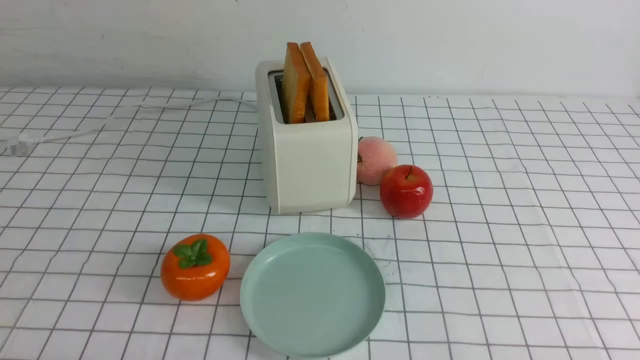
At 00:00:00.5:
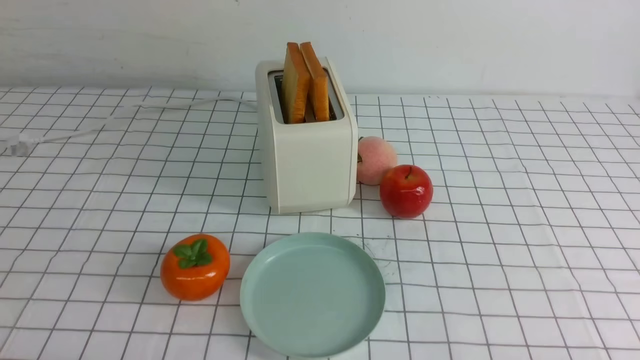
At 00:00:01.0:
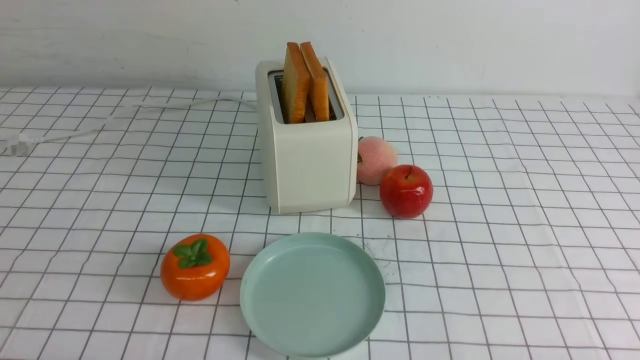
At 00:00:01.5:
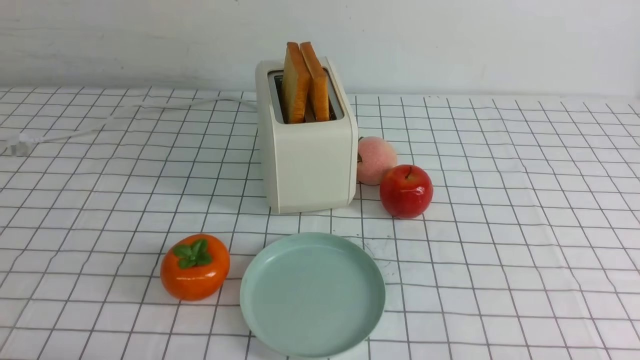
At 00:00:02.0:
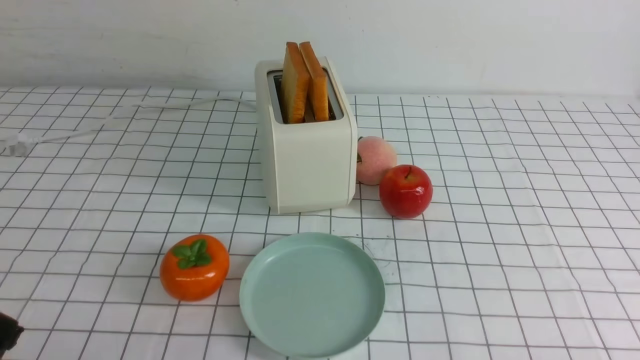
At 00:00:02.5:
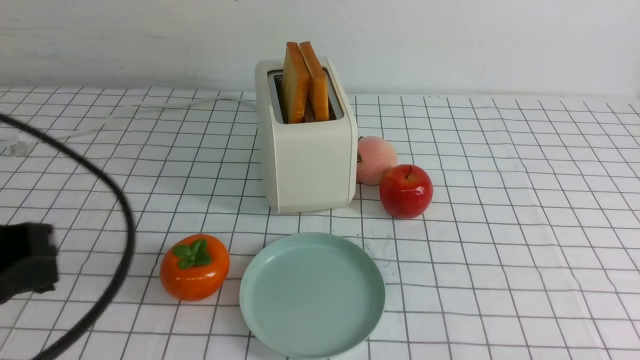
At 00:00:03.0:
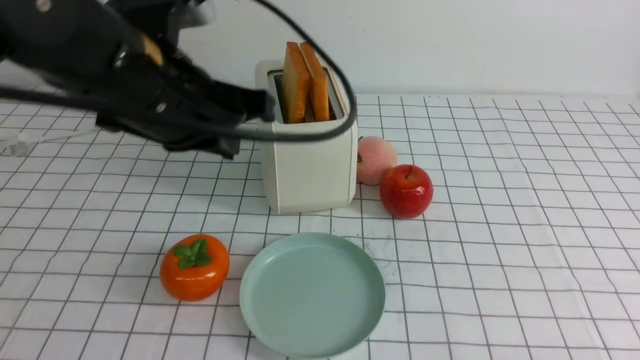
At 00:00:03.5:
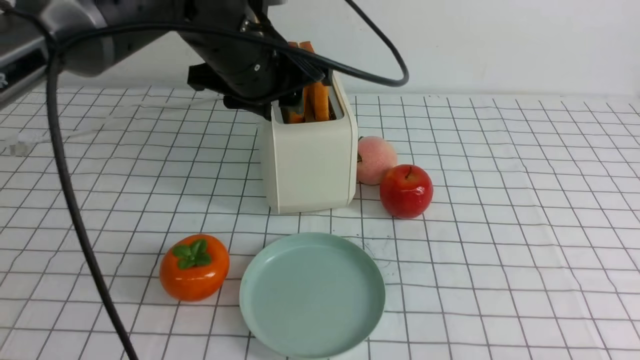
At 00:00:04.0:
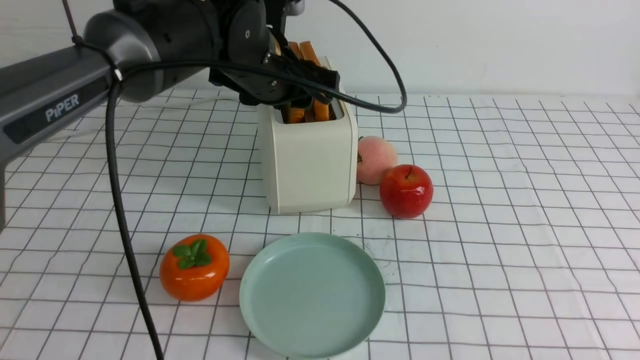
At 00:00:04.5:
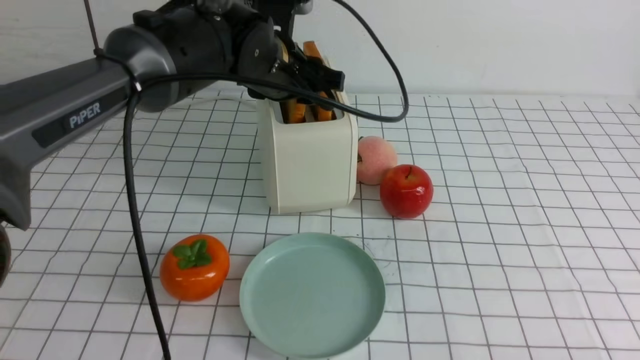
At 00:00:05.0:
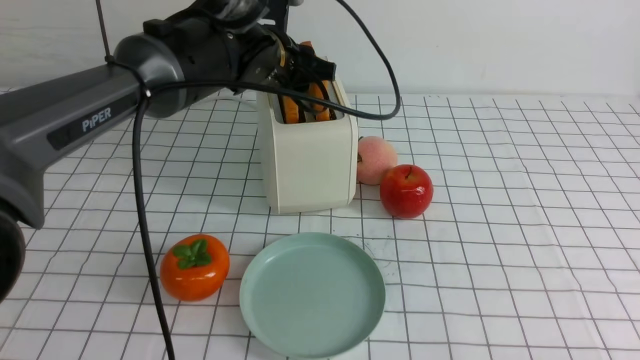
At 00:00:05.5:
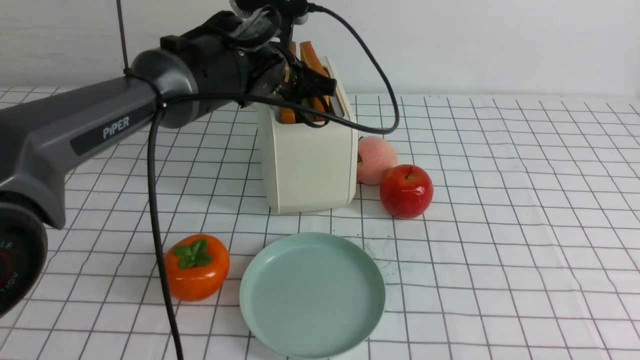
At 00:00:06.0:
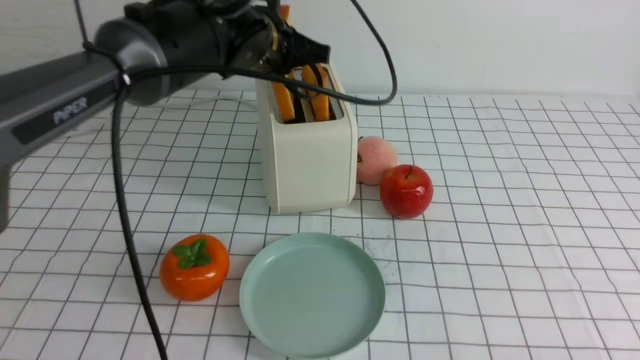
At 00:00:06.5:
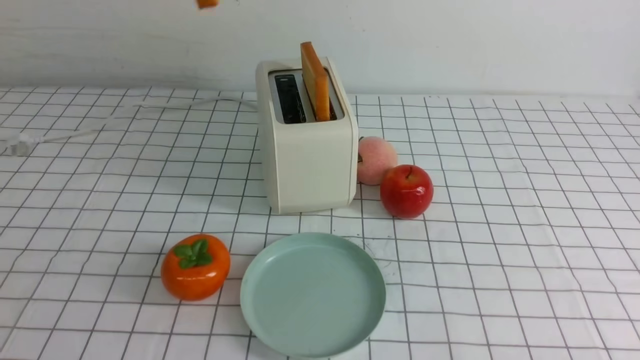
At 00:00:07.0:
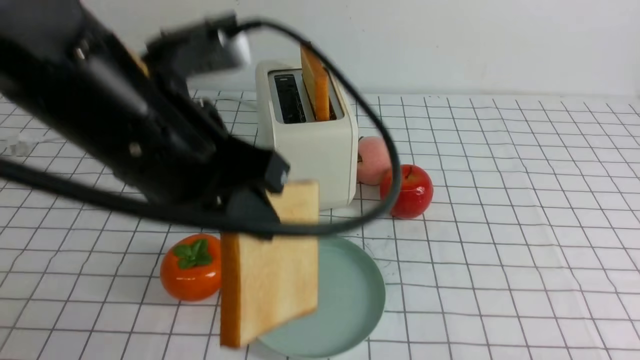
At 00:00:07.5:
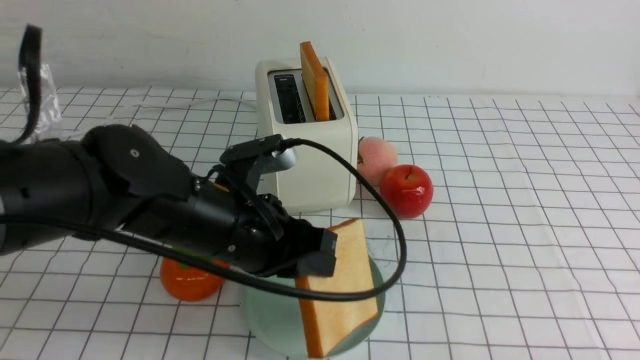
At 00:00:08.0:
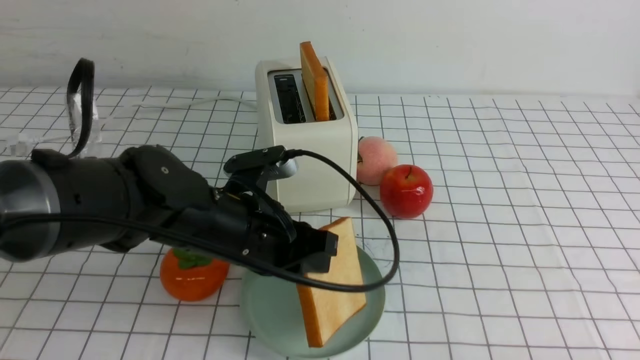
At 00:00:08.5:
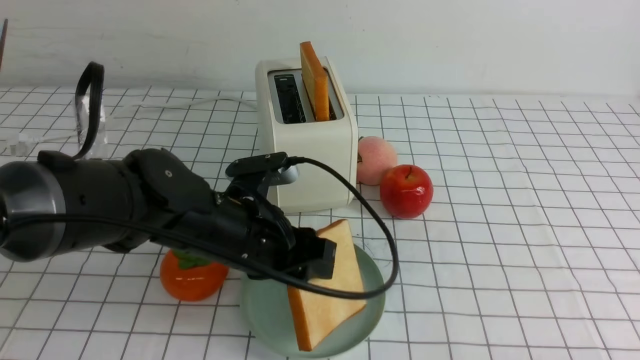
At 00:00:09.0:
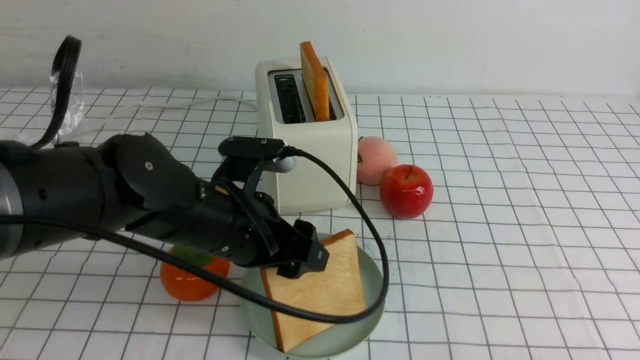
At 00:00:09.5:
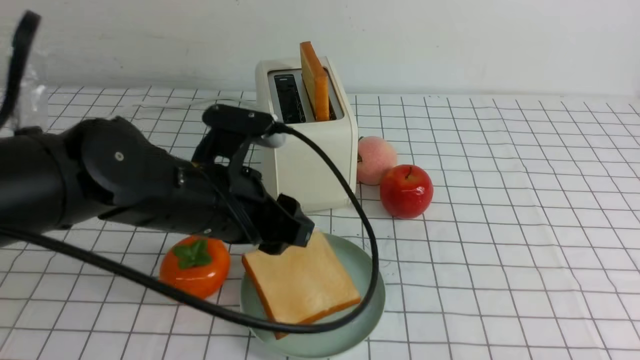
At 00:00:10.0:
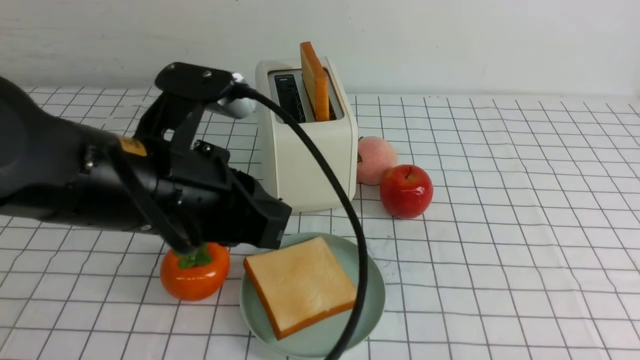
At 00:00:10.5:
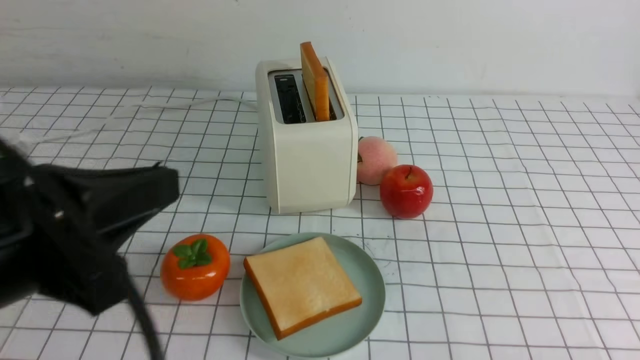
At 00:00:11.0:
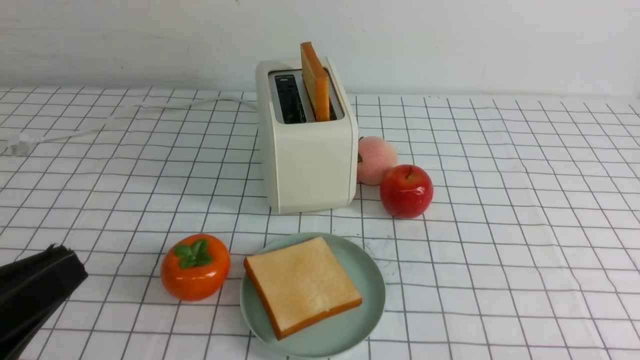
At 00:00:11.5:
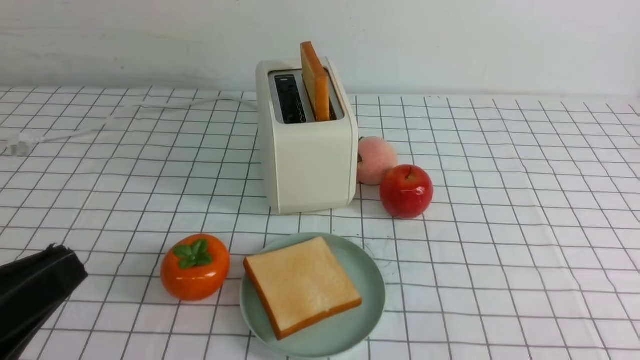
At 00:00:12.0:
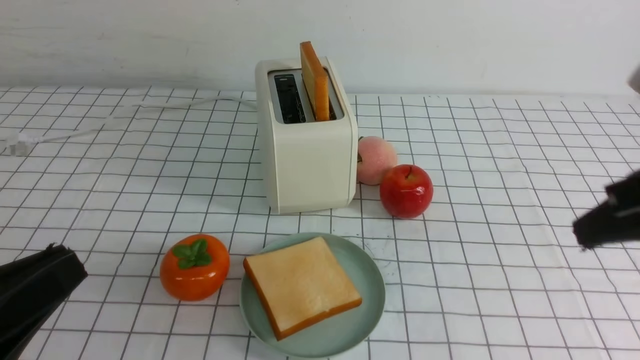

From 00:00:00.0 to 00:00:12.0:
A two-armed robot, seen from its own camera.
Task of the whole recording: take toasted bread from bread machine on white checkered table place on plate.
Step, from 00:00:00.0 to 00:00:06.0: use the left arm to take out a slice of bread.
Step, from 00:00:06.5 to 00:00:09.5: use the left arm to put a slice of bread into the empty plate.
From 00:00:02.0 to 00:00:04.0: The left gripper travels forward and to the right by roughly 40 cm, and opens.
From 00:00:04.0 to 00:00:06.0: The left gripper closes.
From 00:00:06.0 to 00:00:08.0: The left gripper travels downward and backward by some 20 cm.
From 00:00:08.0 to 00:00:10.0: The left gripper is displaced upward and backward by roughly 15 cm, and opens and closes again.
From 00:00:10.0 to 00:00:12.0: The right gripper shifts roughly 25 cm upward and forward, and closes up. Meanwhile the left gripper shifts roughly 20 cm backward and to the left.

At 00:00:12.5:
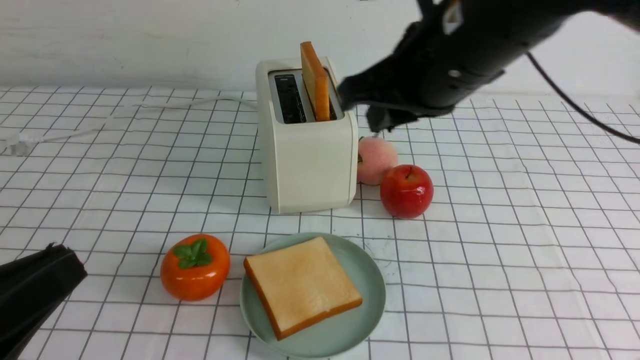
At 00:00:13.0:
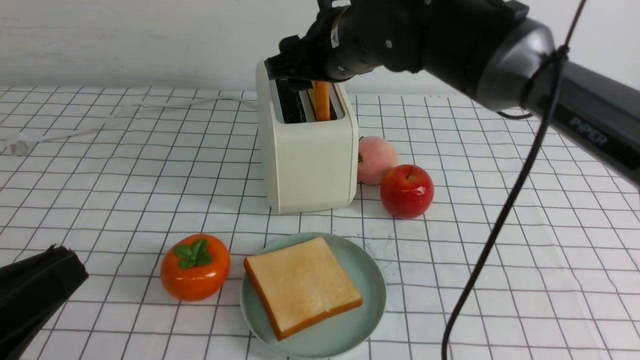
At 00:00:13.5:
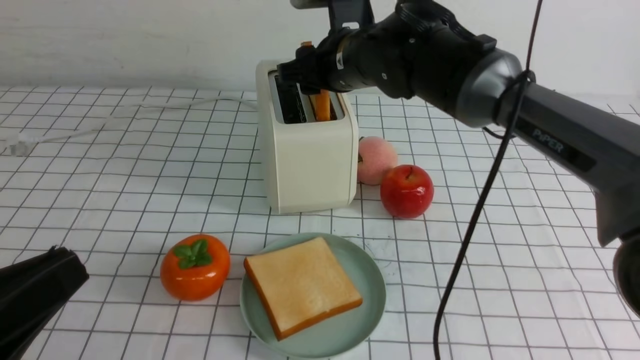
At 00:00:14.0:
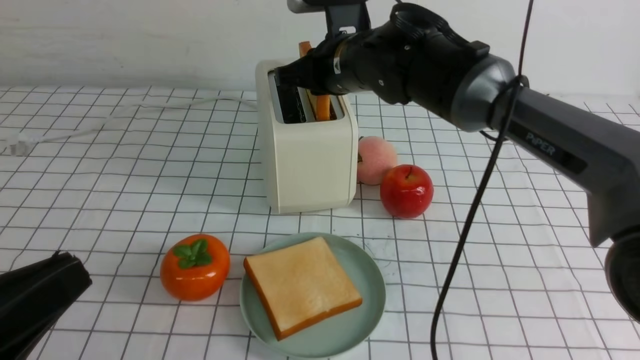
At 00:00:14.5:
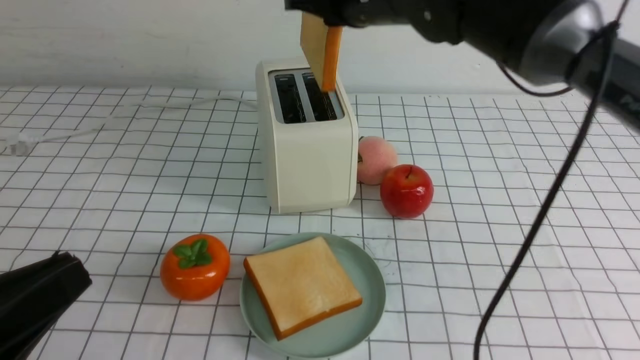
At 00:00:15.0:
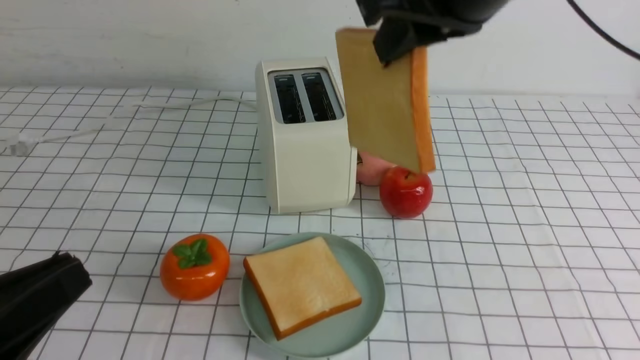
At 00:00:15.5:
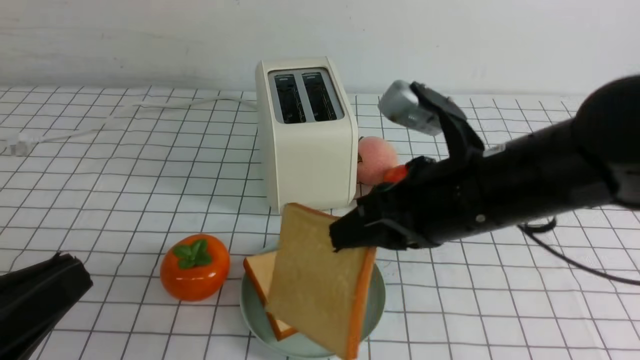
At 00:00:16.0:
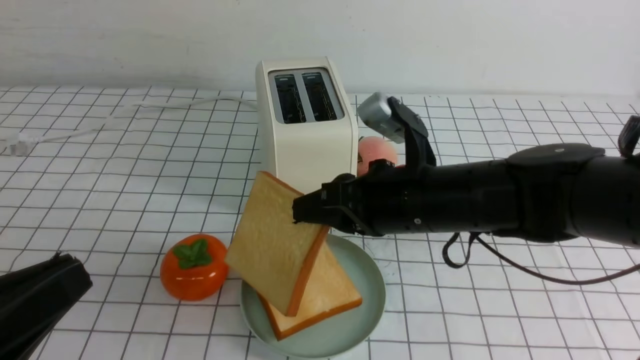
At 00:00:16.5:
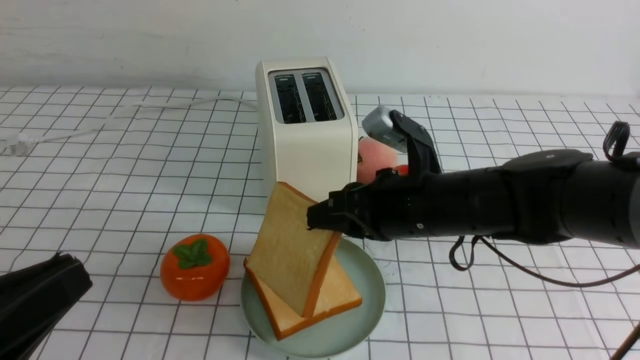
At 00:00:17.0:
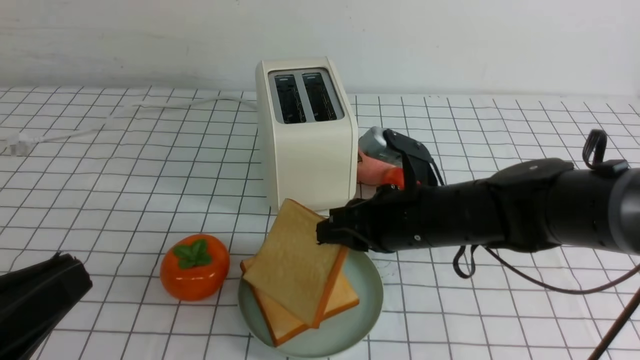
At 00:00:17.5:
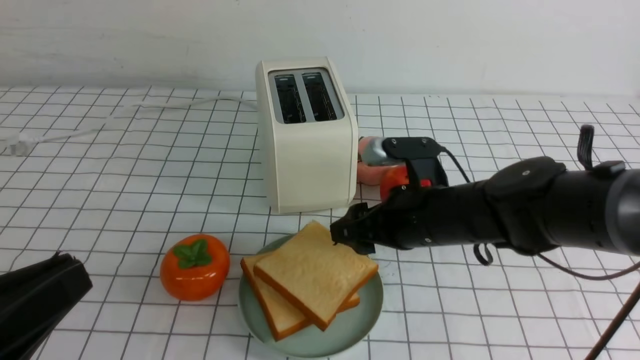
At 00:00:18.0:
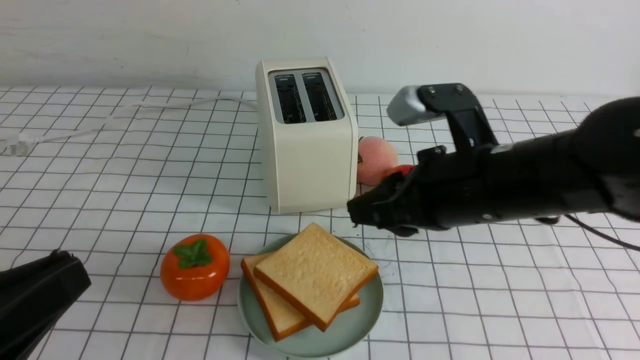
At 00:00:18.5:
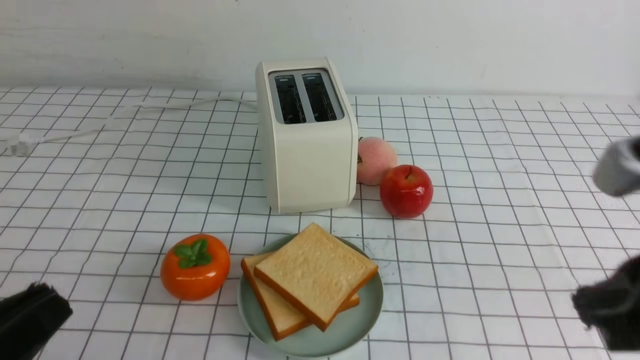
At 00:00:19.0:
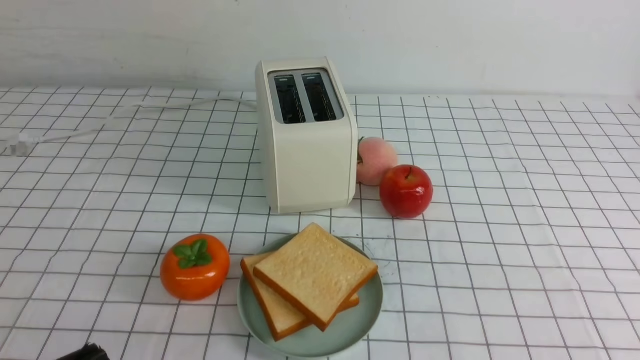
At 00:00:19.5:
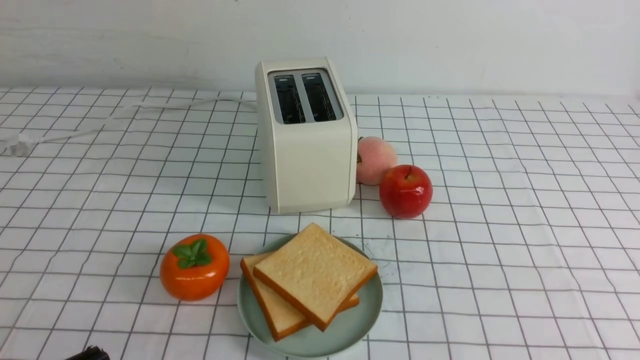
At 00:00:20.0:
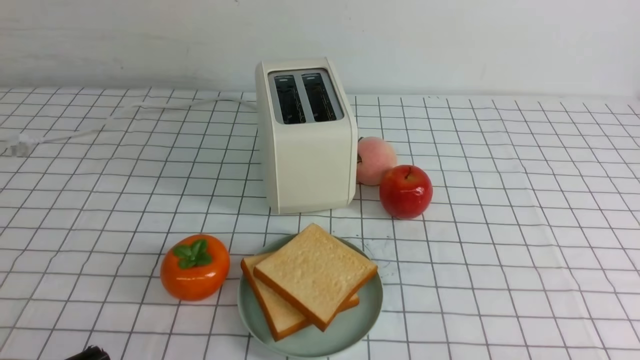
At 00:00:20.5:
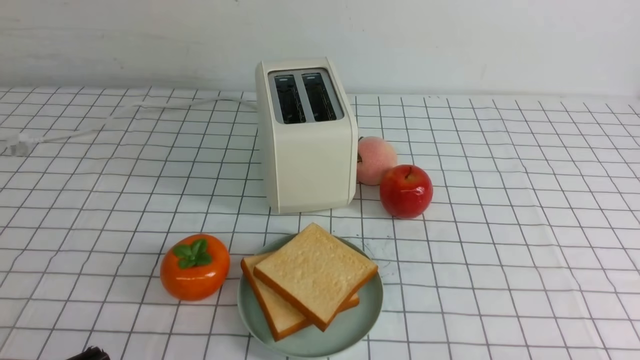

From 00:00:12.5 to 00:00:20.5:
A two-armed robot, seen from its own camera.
Task of the whole recording: take toasted bread from bread machine on white checkered table place on plate.
Step, from 00:00:14.5 to 00:00:17.5: use the right arm to put a slice of bread into the plate.
From 00:00:12.5 to 00:00:14.5: The right gripper goes some 10 cm forward, and opens and closes again.
From 00:00:14.5 to 00:00:16.5: The right gripper shifts approximately 20 cm downward and backward.
From 00:00:16.5 to 00:00:18.5: The right gripper goes some 25 cm backward, to the right and upward, and opens, then closes again.
From 00:00:18.5 to 00:00:20.5: The right gripper travels downward, to the right and backward by about 20 cm; the left gripper heads downward, covering some 5 cm.
